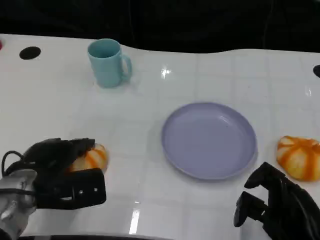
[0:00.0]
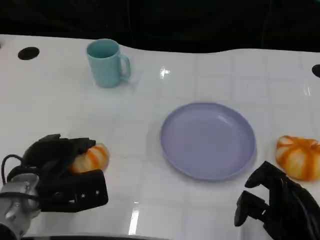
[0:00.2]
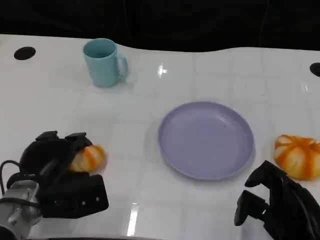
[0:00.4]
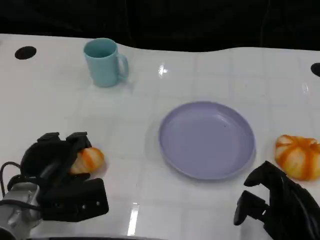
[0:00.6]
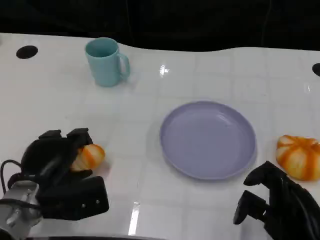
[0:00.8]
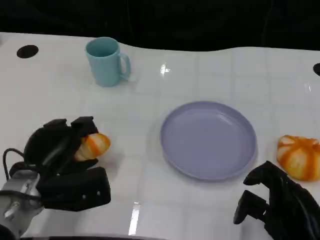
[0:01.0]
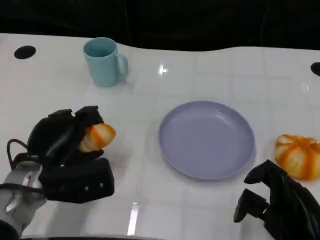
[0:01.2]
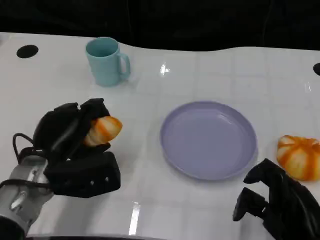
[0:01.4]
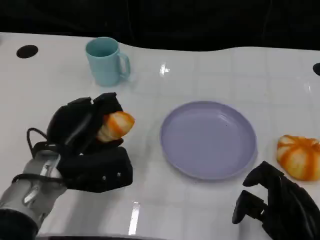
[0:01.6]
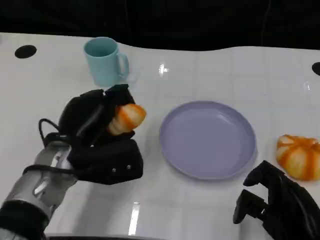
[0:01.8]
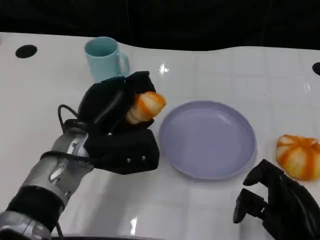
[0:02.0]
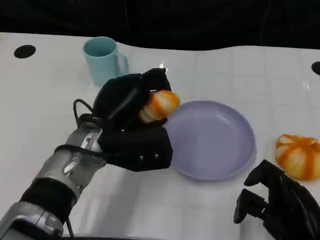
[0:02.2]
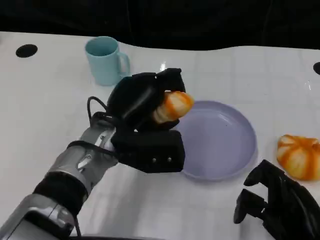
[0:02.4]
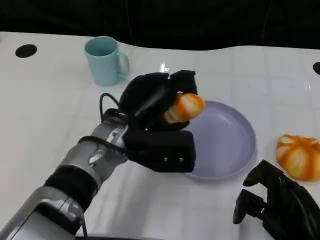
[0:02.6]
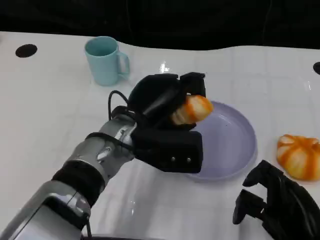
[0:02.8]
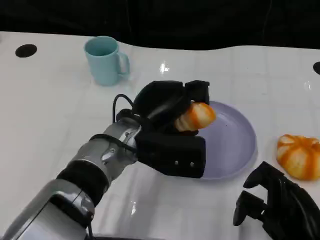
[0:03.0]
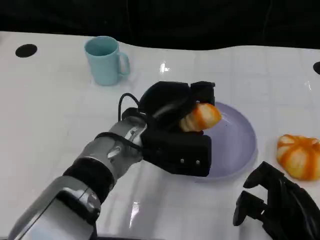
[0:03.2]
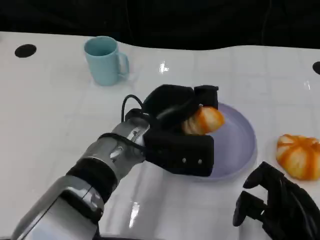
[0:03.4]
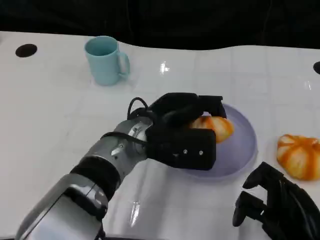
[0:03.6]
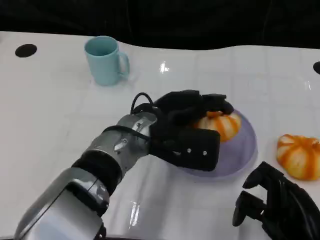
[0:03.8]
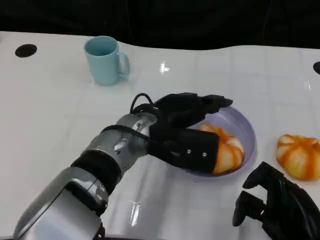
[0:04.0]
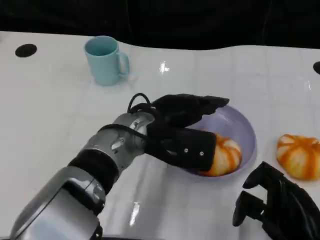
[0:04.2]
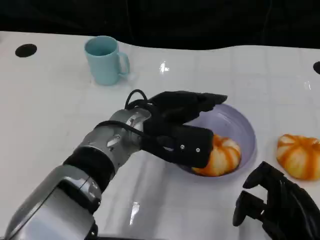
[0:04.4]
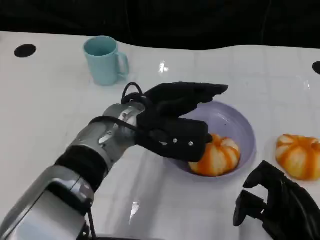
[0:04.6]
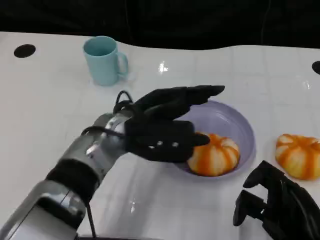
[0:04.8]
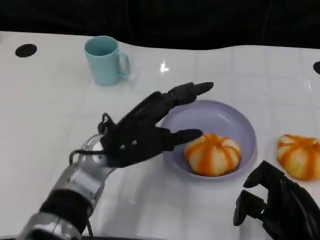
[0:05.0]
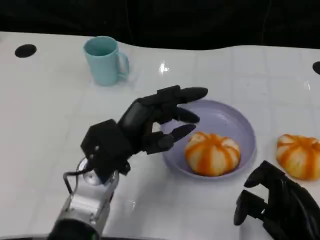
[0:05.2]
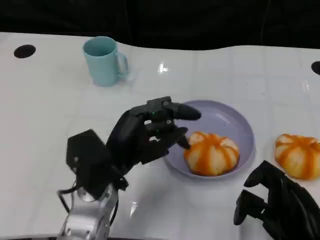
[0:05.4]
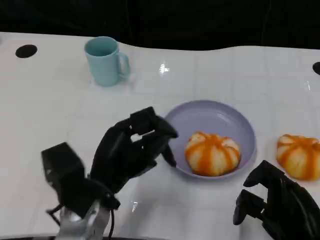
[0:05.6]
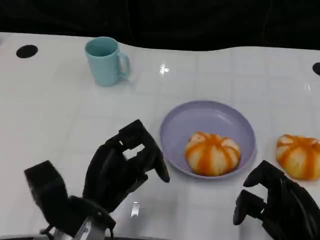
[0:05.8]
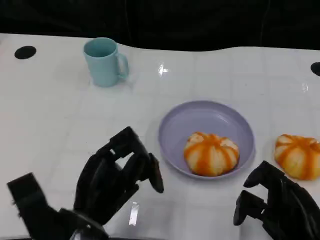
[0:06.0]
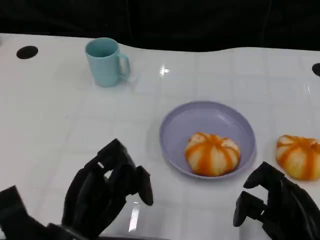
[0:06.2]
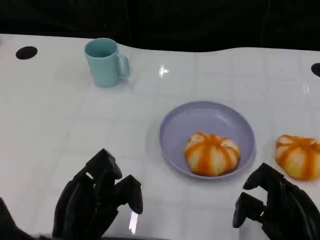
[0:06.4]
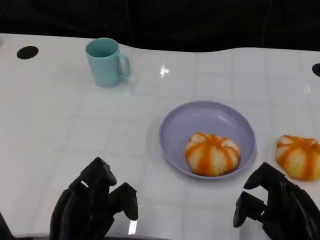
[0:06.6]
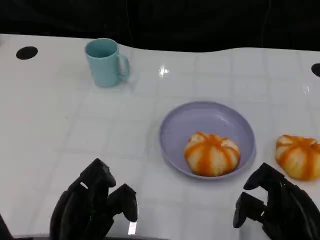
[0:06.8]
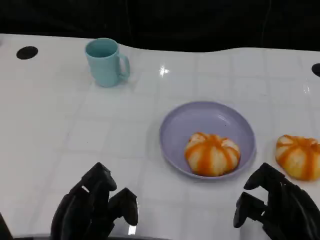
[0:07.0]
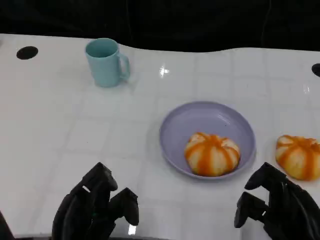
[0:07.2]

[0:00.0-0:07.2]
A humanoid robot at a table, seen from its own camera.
Task of the whole recording: Grasp the bread from the table and place it into the plate.
0:01.4 to 0:02.8: The left hand shifts approximately 10 cm to the right.
0:04.4 to 0:05.8: The left hand shifts some 15 cm backward, to the left and downward.
0:05.8 to 0:07.2: The left hand moves backward, approximately 5 cm.

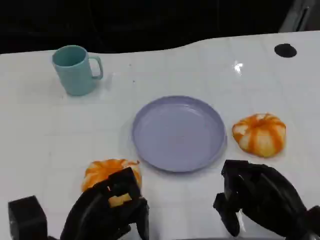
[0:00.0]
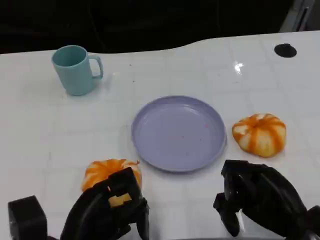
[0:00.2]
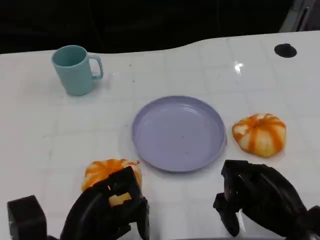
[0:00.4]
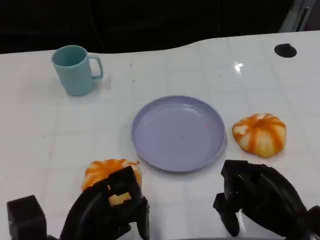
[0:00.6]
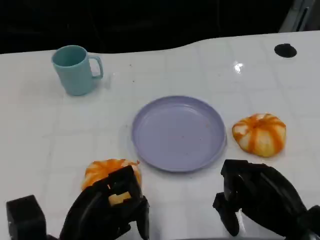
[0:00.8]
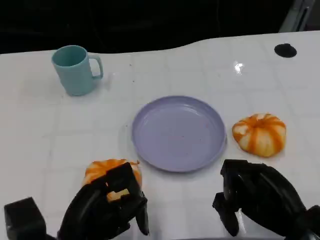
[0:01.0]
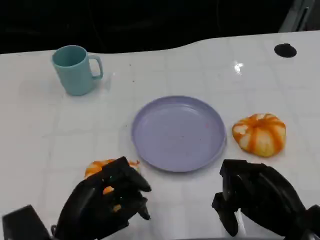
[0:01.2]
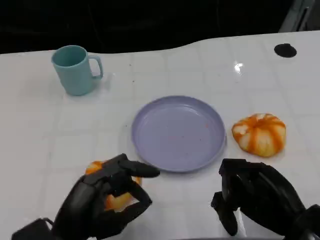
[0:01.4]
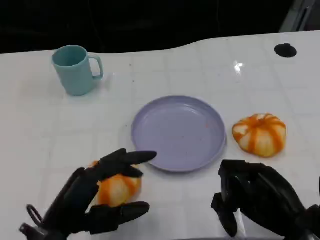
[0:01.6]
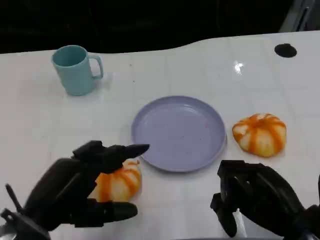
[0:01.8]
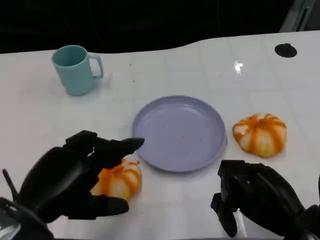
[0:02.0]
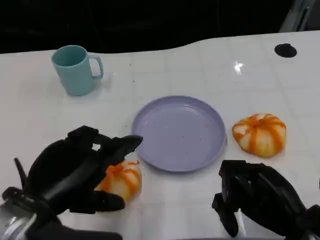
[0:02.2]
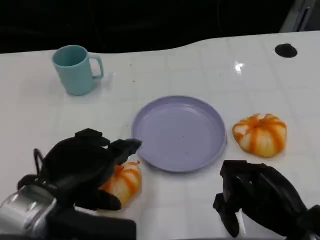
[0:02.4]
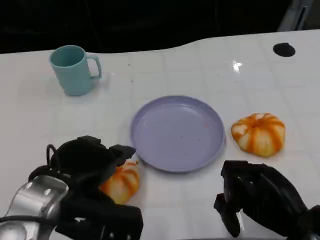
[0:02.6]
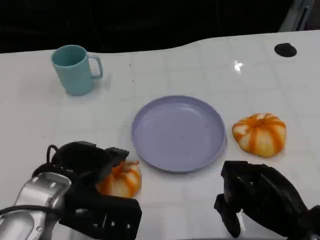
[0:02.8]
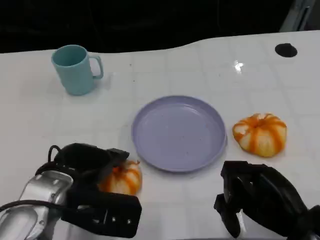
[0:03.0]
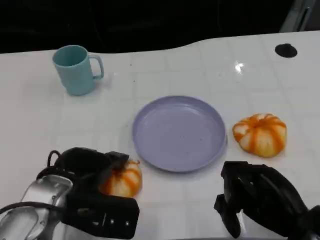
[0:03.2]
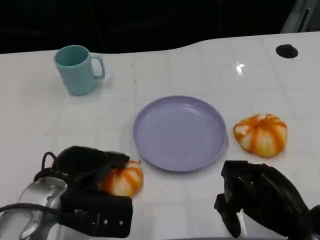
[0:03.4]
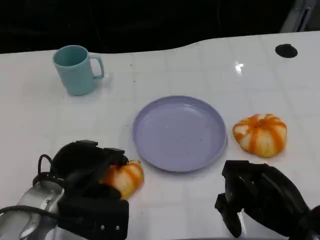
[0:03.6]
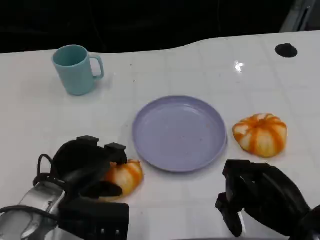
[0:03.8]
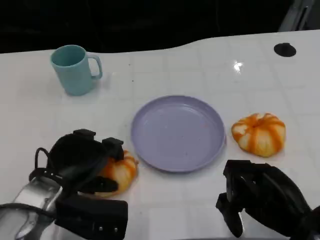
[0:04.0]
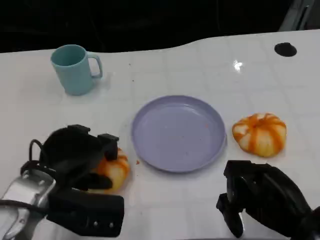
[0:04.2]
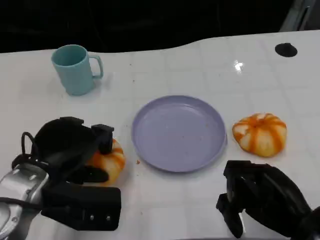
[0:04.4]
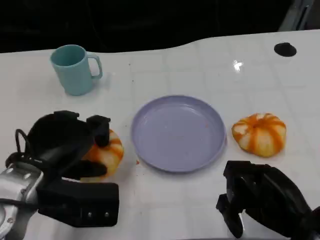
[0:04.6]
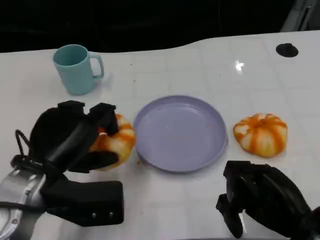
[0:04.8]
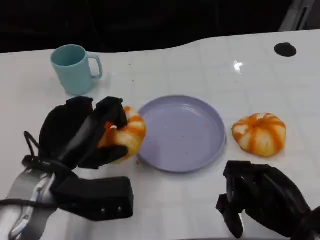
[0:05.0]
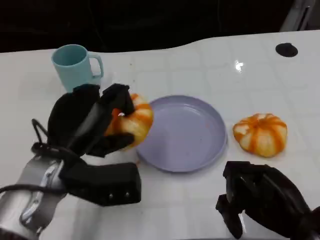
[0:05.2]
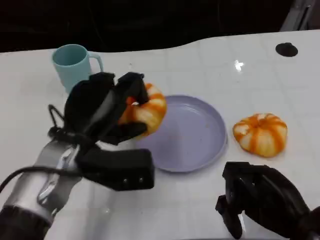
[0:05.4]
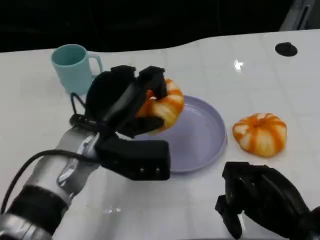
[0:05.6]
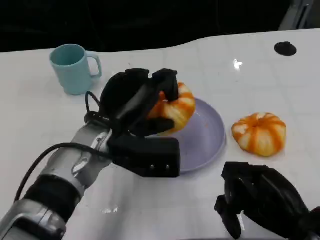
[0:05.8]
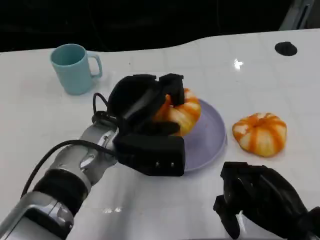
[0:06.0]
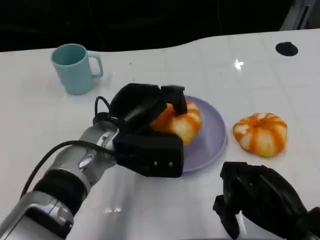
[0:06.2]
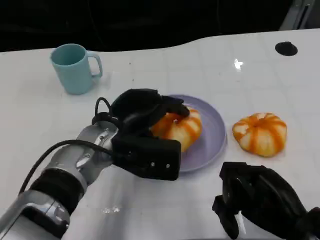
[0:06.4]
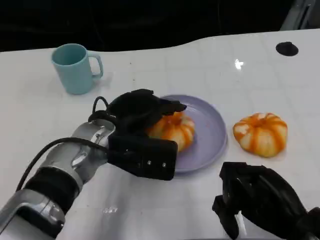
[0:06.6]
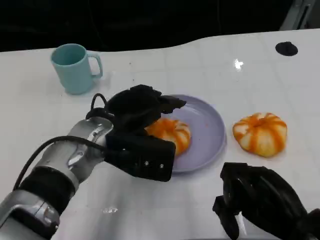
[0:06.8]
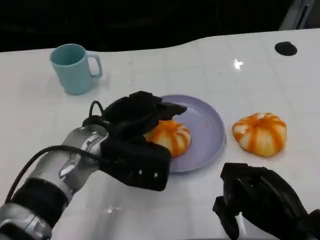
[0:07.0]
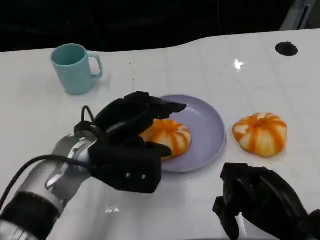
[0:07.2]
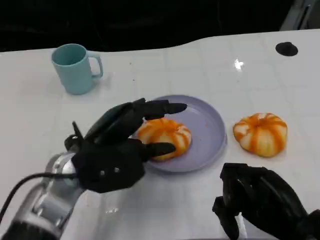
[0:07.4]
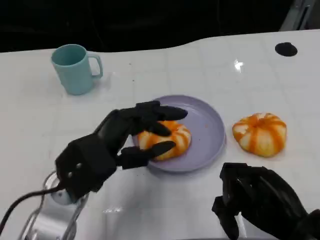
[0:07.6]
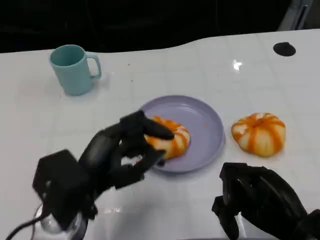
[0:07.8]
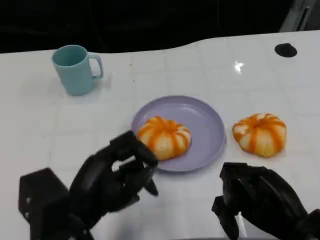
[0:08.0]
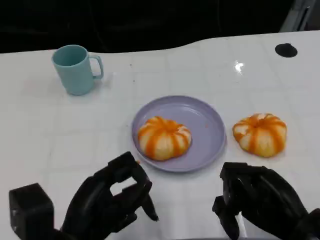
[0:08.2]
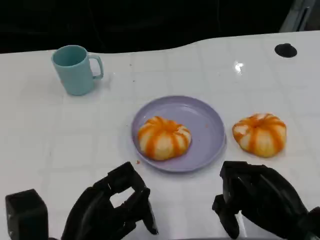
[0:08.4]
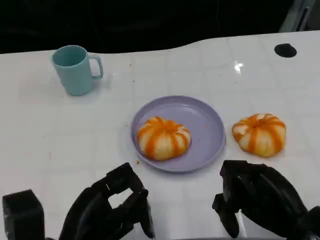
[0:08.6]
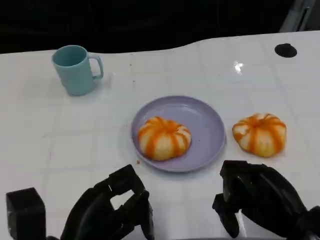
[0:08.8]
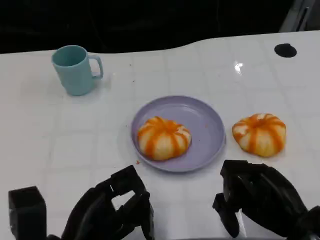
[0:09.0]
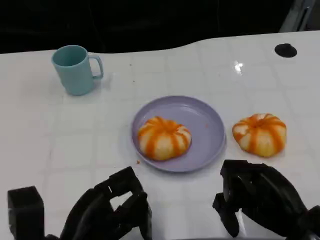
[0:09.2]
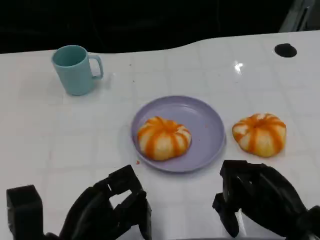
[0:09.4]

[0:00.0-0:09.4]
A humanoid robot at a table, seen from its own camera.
Task of the whole recording: Grasp the bread from the table and place it into the plate.
0:01.6 to 0:03.2: The left hand is displaced forward by approximately 10 cm.
0:04.8 to 0:06.2: The left hand travels to the right and forward by some 10 cm.
0:06.2 to 0:07.8: The left hand moves backward and to the left, about 10 cm.
0:07.8 to 0:09.4: The left hand moves approximately 5 cm.

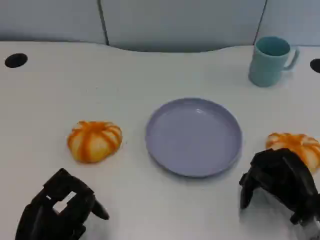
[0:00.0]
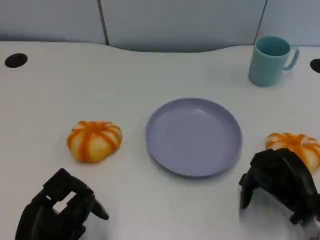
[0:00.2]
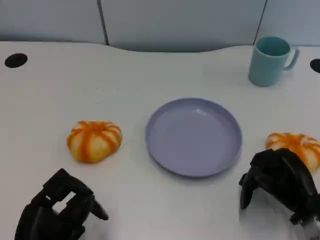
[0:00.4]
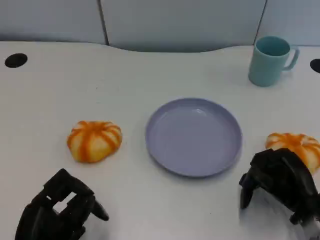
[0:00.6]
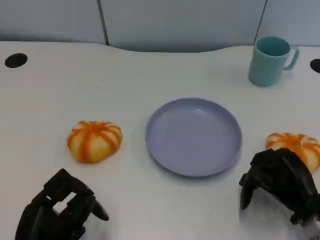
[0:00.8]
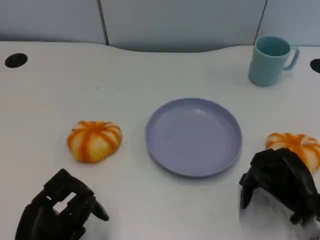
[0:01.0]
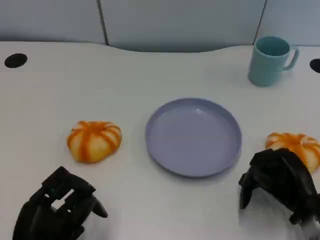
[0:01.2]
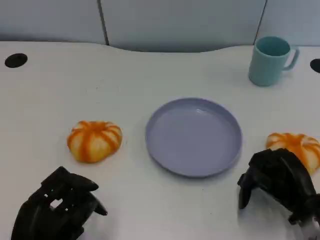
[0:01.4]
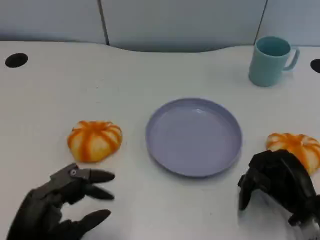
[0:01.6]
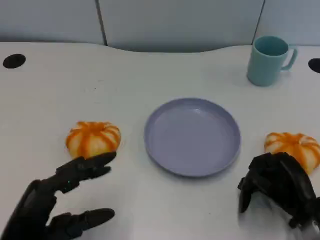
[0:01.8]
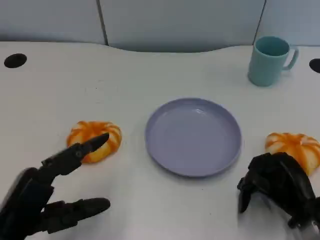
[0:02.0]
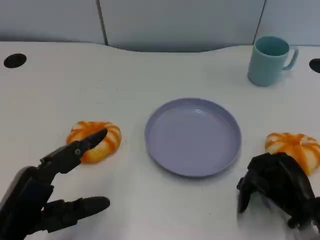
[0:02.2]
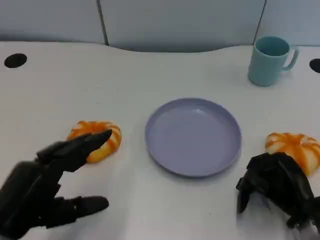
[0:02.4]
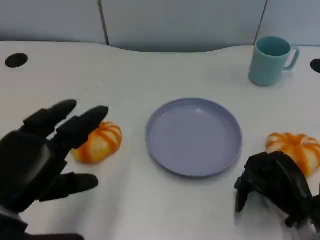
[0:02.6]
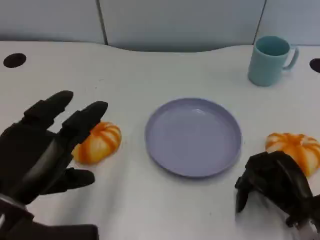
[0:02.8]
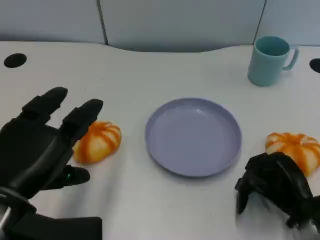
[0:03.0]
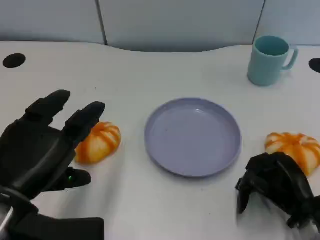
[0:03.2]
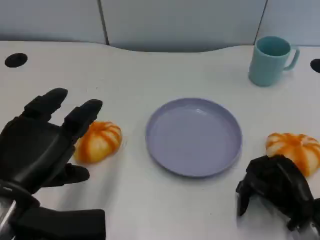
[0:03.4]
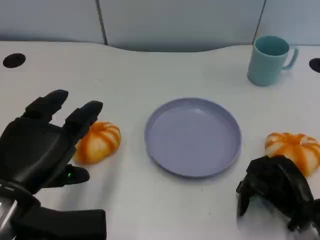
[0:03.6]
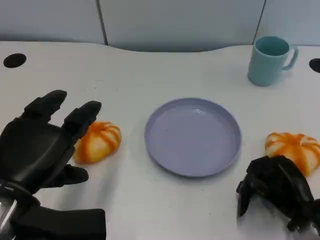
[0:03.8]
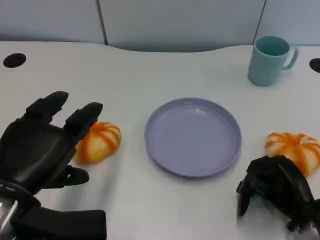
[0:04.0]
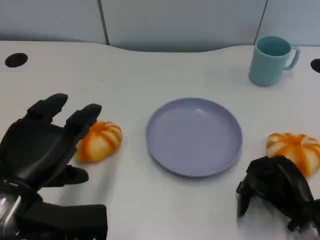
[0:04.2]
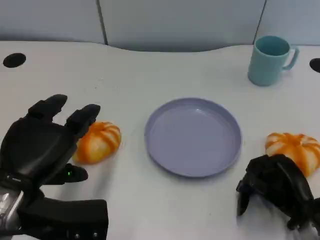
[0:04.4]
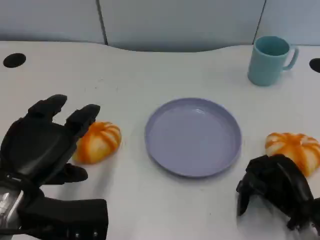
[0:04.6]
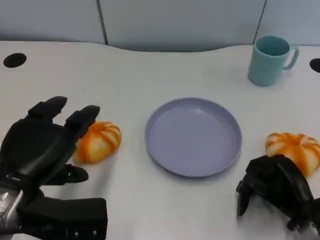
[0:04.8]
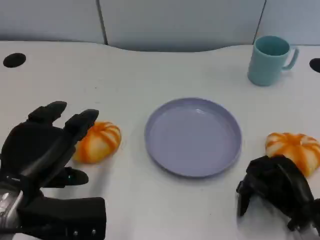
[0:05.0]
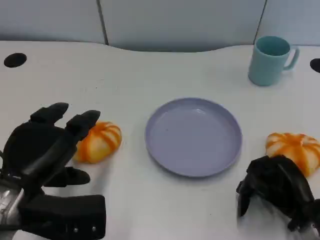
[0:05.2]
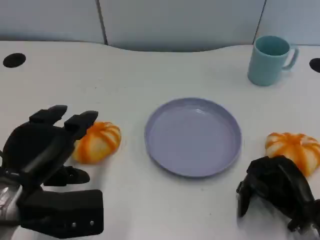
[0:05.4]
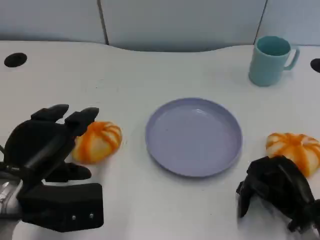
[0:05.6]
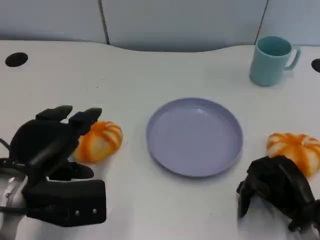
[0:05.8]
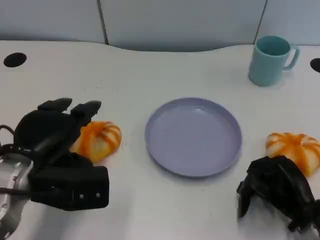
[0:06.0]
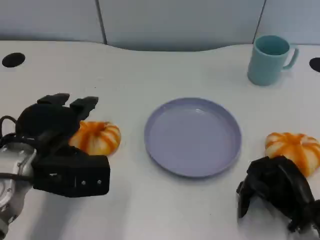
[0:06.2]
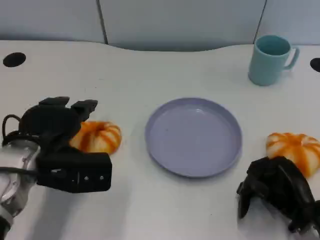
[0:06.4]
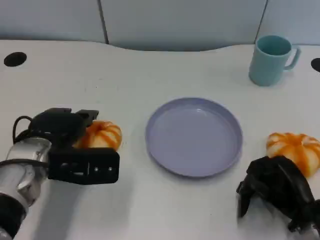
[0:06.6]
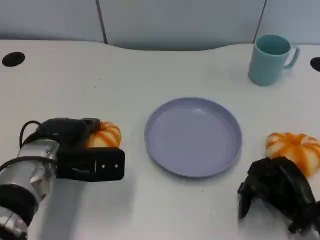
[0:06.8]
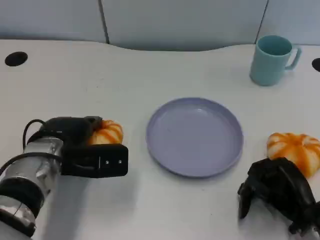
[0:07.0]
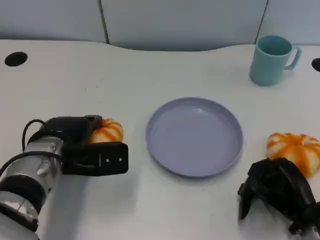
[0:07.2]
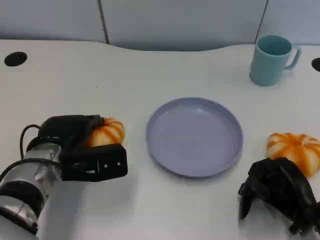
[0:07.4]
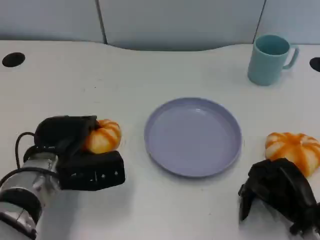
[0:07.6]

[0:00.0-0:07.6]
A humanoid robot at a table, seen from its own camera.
Task of the whole recording: Grasp the bread from the table and place it into the plate.
0:01.6 to 0:03.0: The left hand moves upward, some 10 cm.
0:03.0 to 0:04.6: The hands stay close to where they were, moving slightly.
0:04.6 to 0:06.0: The left hand heads forward, covering approximately 5 cm.
0:06.0 to 0:07.6: The left hand heads downward, covering about 5 cm.
